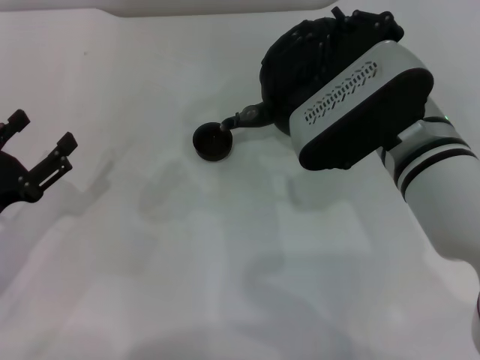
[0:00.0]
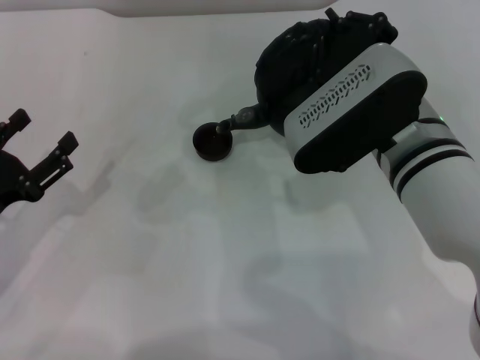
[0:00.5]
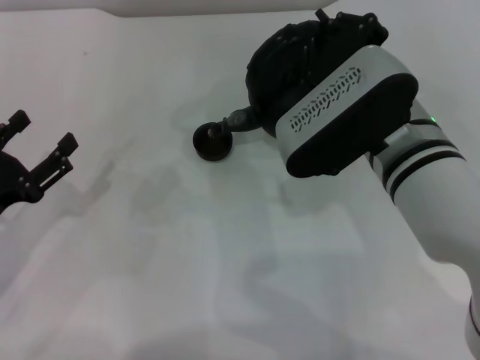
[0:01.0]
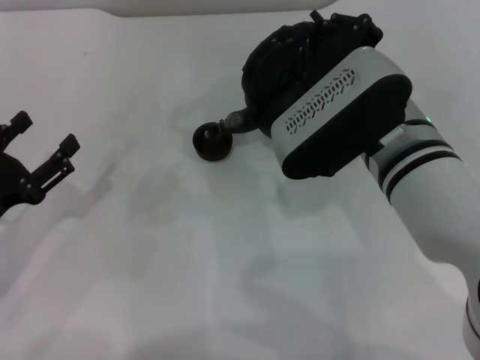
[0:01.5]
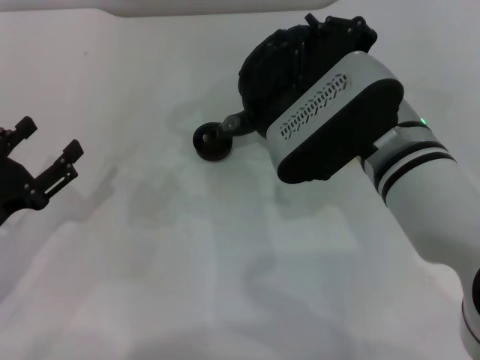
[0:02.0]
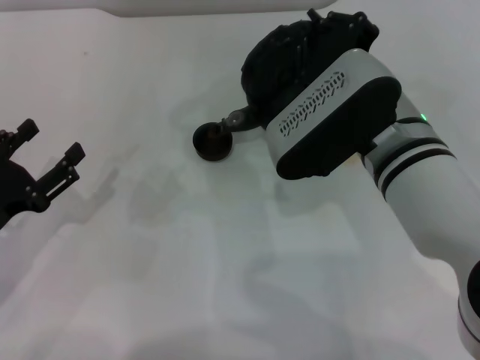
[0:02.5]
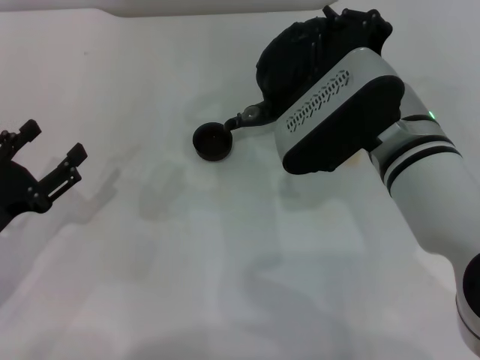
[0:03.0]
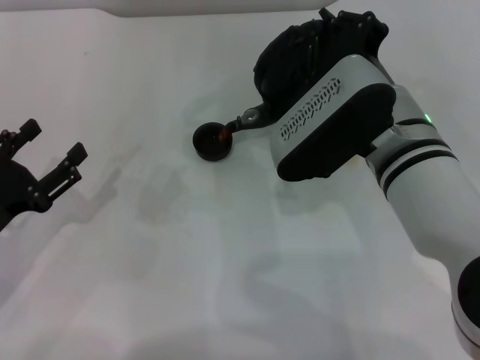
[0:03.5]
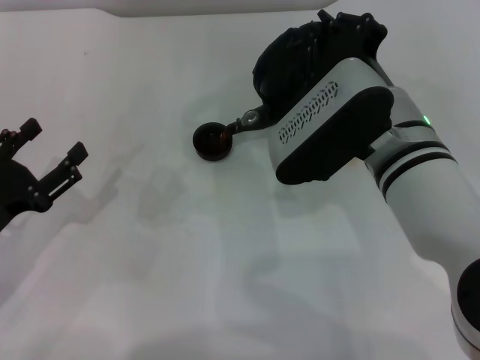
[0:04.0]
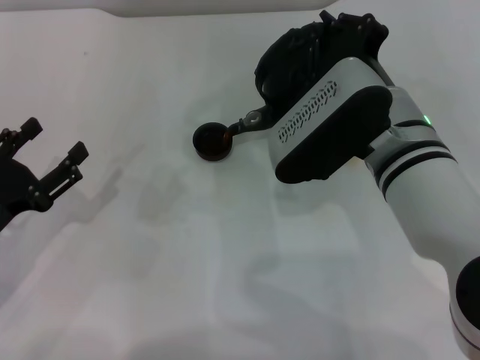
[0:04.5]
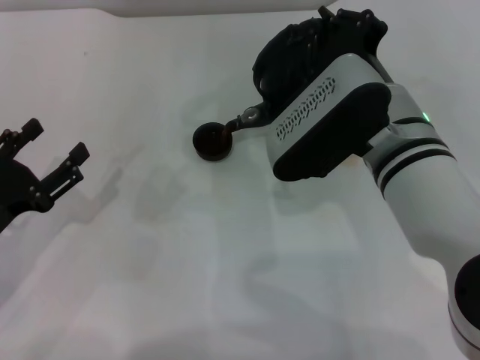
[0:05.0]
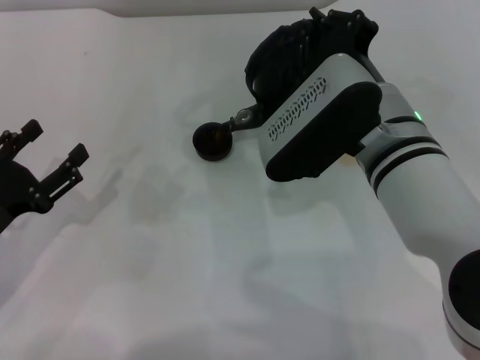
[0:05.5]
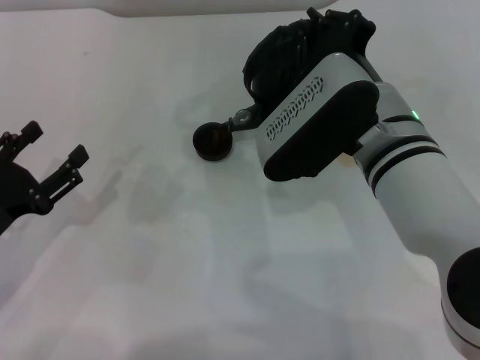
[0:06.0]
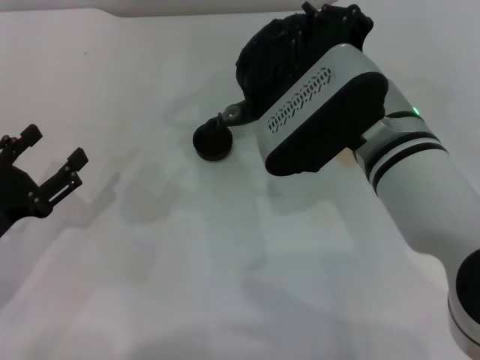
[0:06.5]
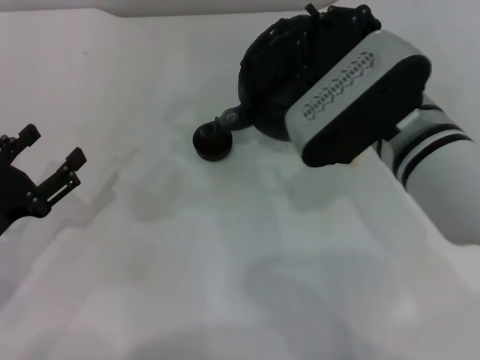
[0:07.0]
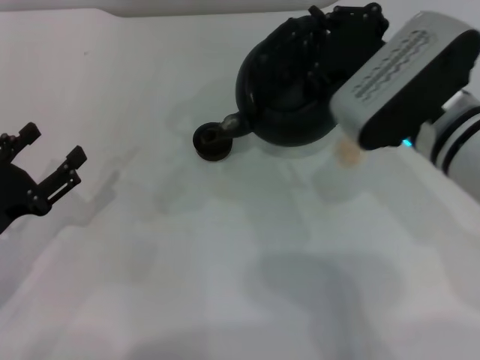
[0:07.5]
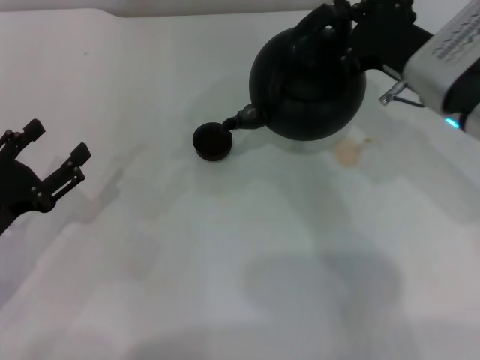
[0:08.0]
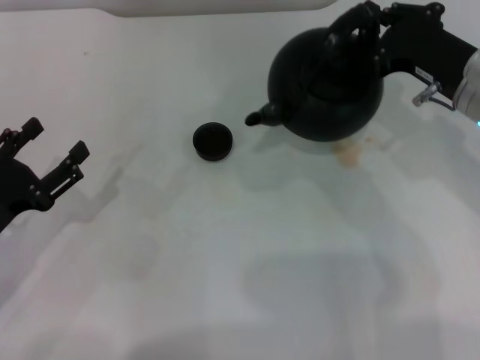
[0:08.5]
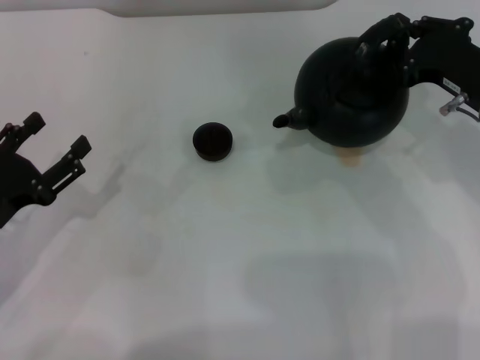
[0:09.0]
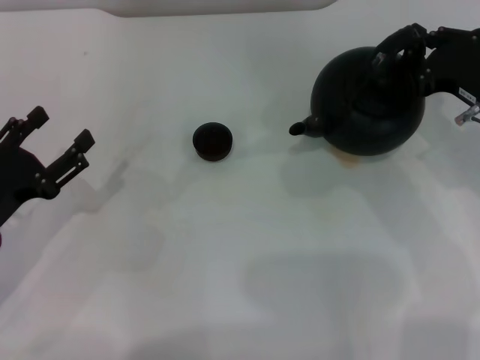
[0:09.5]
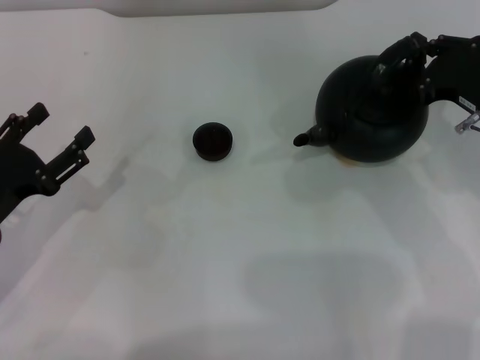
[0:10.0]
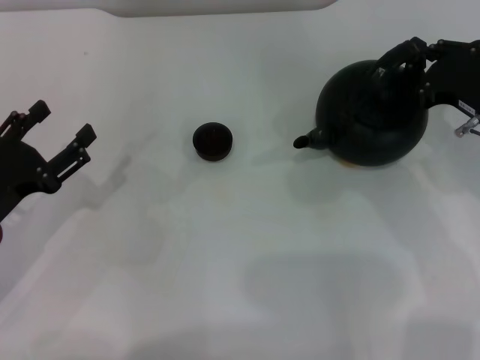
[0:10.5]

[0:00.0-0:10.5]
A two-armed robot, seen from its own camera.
Task of the whole recording: Grasp the handle of the teapot with one hand and pour tea into the teacup.
Step, 0:00.0 to 0:08.5: Pour tea into the teacup with the right gripper.
0:00.0 to 0:02.0: The two grippers keep their place.
0:02.0 to 0:06.5: There are only small adjustments of the grippers.
0:06.5 to 0:08.5: The right gripper goes about 15 cm to the right.
0:08.5 to 0:10.5: The right gripper shifts by about 5 cm.

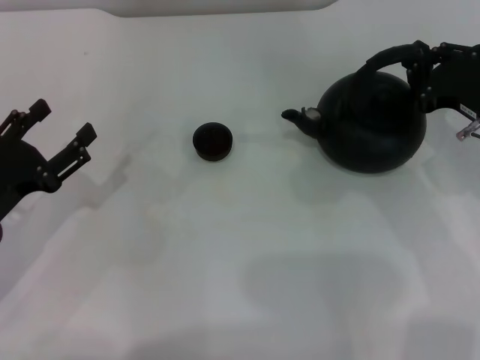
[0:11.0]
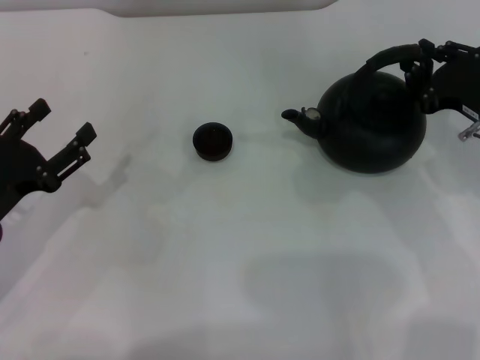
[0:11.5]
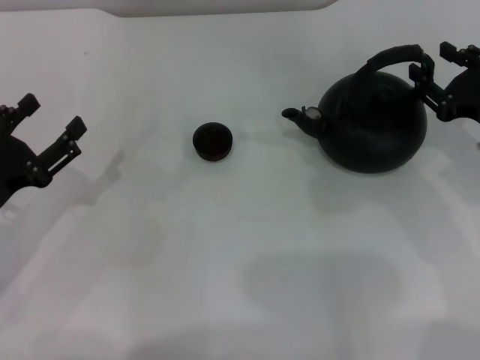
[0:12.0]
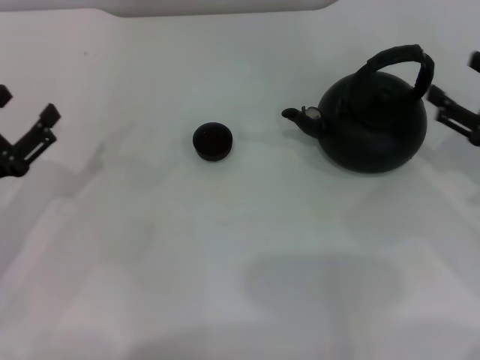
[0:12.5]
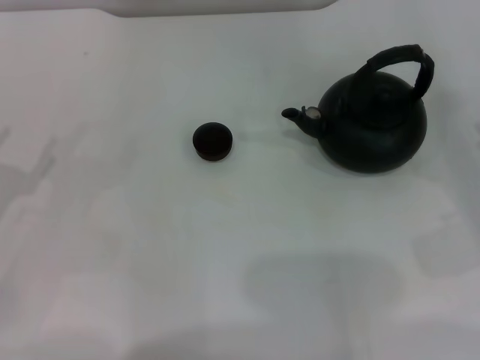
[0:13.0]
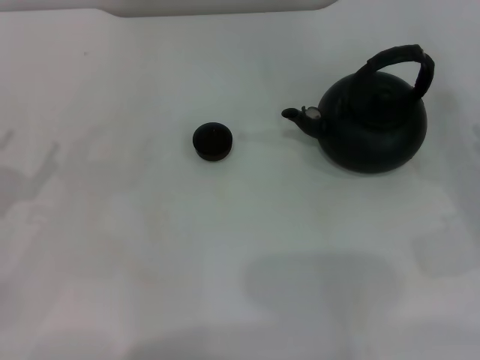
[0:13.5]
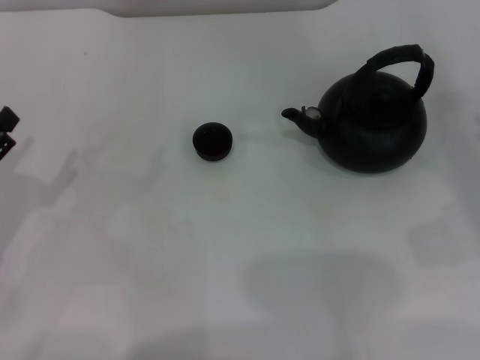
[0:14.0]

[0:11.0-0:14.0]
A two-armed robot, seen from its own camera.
Task of the whole recording: Grasp the handle of the teapot with one hand and pour tea into the teacup.
0:11.0 to 0:12.5: The right gripper moves backward, some 5 cm, and opens its fingers.
0:12.5 to 0:14.0: The right gripper changes place by approximately 5 cm.

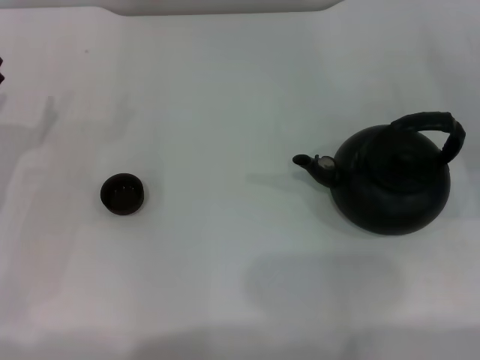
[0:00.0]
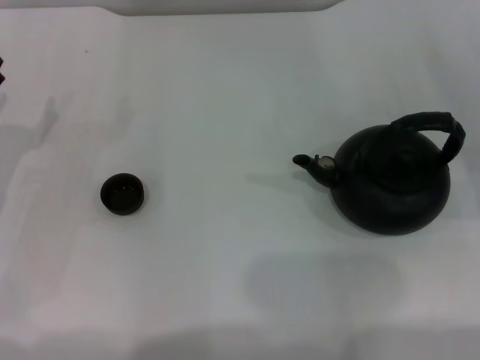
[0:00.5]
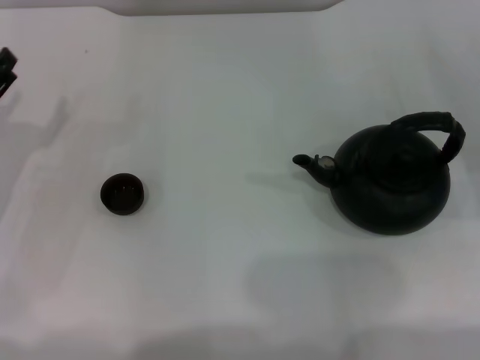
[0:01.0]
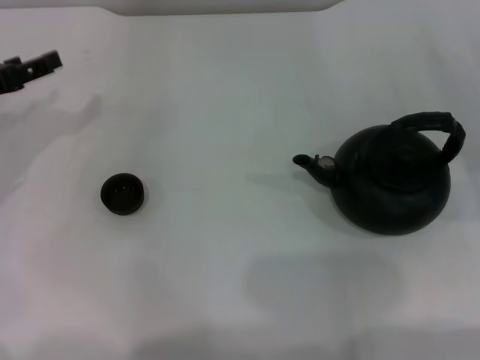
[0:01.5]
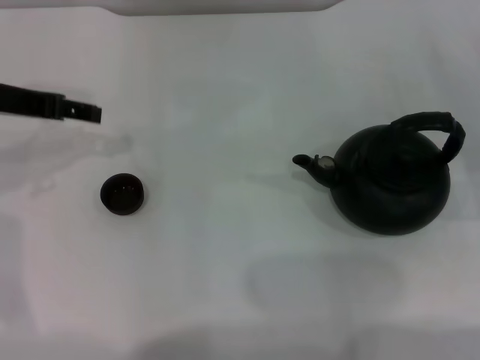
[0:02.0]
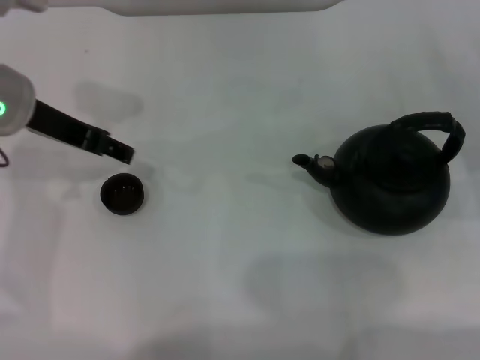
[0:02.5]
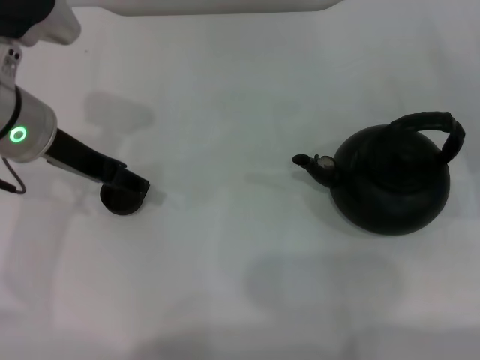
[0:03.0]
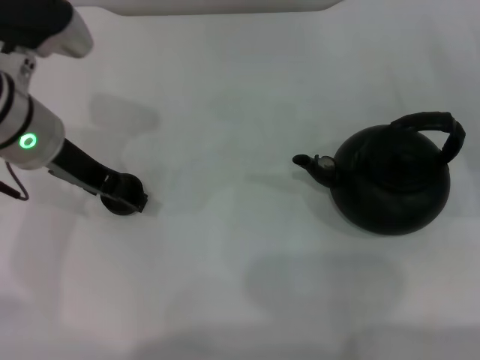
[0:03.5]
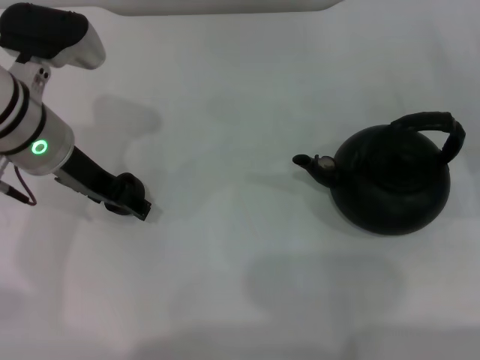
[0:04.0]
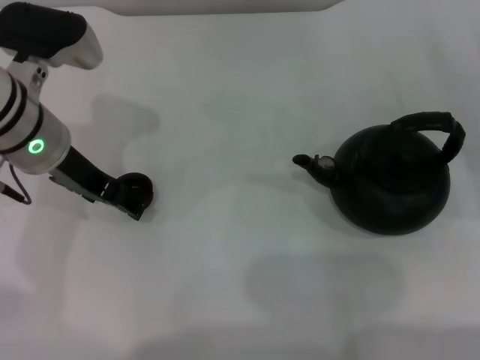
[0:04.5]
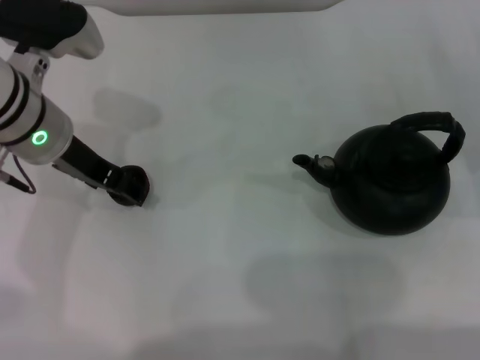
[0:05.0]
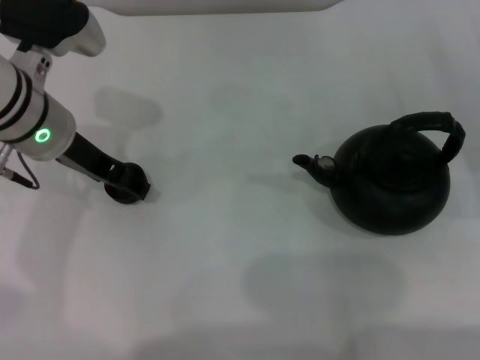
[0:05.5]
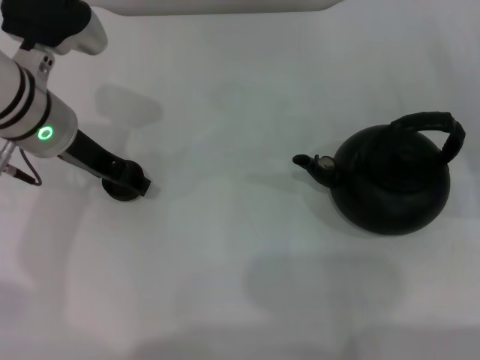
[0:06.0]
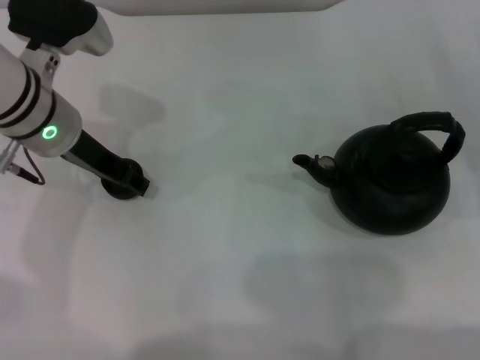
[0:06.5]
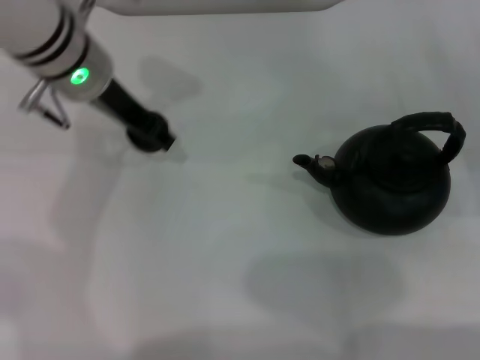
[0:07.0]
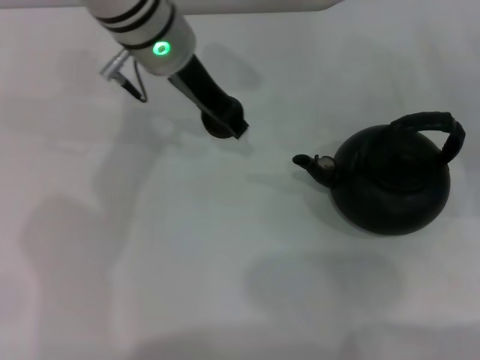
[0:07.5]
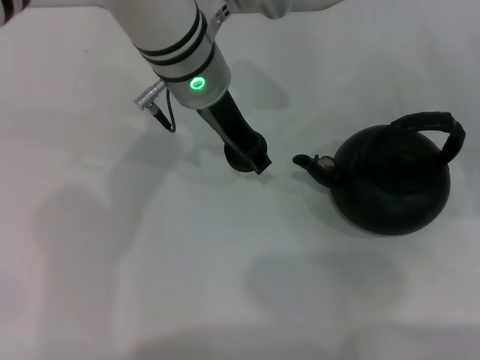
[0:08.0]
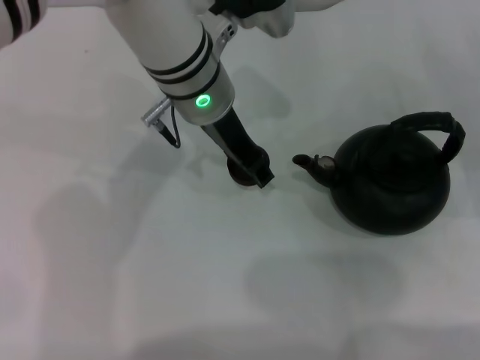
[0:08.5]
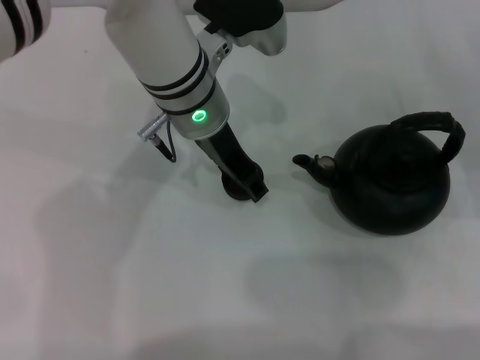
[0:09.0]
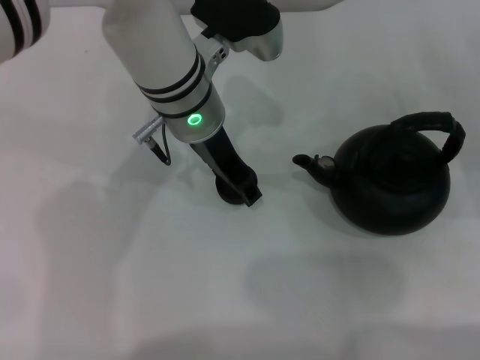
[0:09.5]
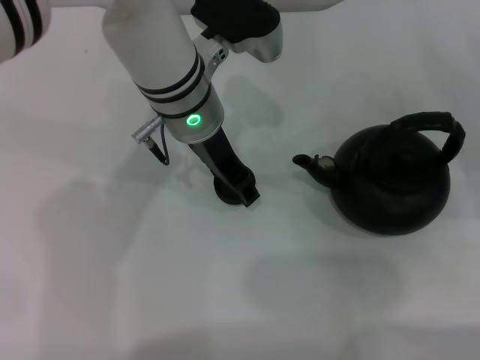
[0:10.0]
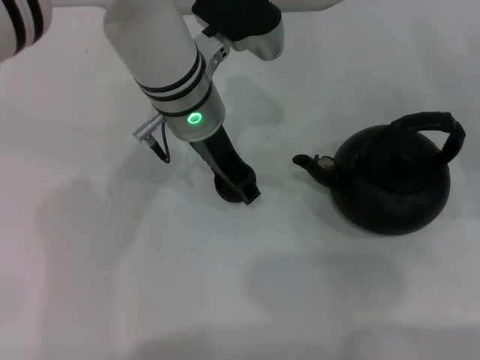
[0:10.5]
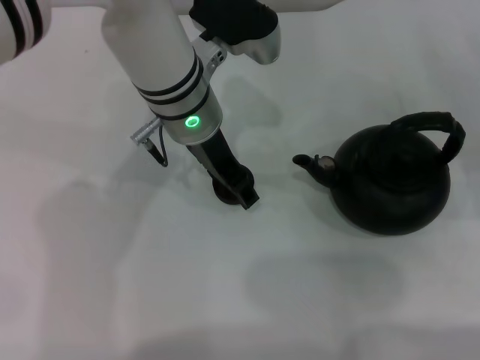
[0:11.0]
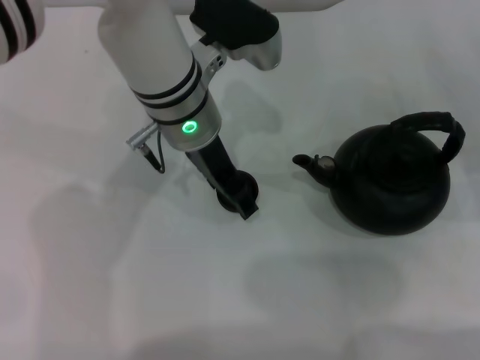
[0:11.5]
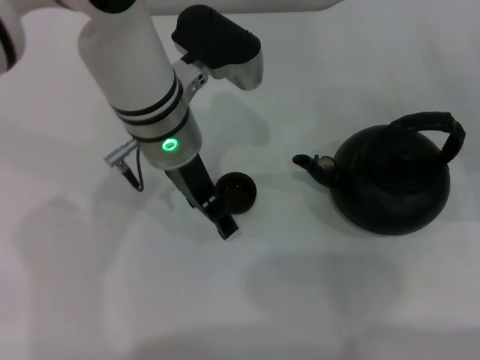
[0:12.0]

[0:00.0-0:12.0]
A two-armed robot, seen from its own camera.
Task of the whole recording: Grasp the handle of the teapot with one hand and pour tea into the teacup.
Step, 0:00.0 to 0:06.5: Pick up the teacup with the left gripper.
0:00.0 to 0:02.0: The left gripper heads upward, forward and to the right, covering some 15 cm.
0:02.0 to 0:04.0: The left gripper shifts about 10 cm to the right.
0:04.0 to 0:06.0: The grippers stay close to where they were, moving slightly.
0:06.0 to 0:08.0: The left gripper travels to the right by about 15 cm, and closes its fingers.
0:08.0 to 0:10.0: The grippers move only a little.
0:10.0 to 0:12.0: The left gripper opens.
